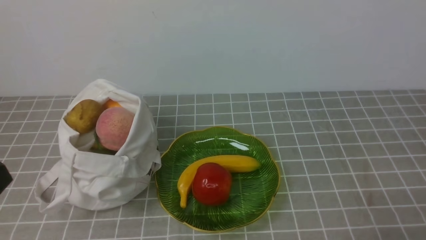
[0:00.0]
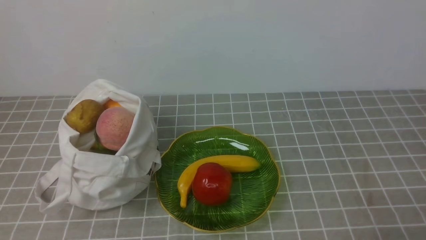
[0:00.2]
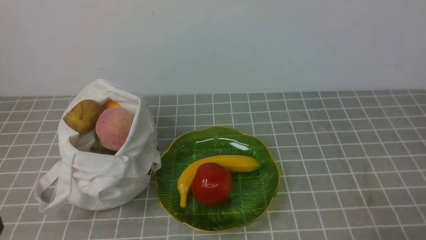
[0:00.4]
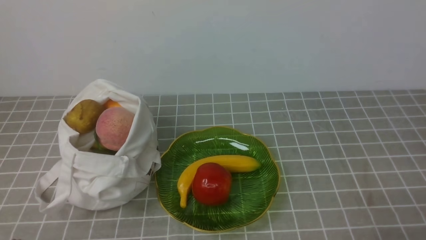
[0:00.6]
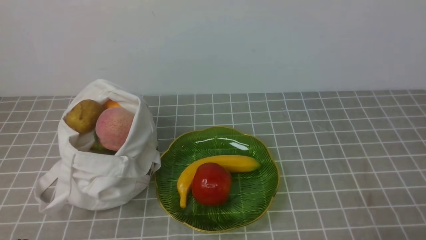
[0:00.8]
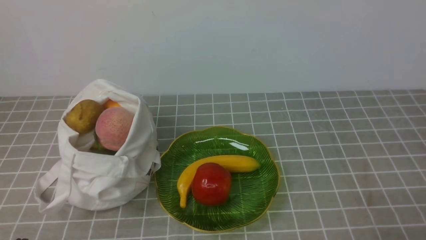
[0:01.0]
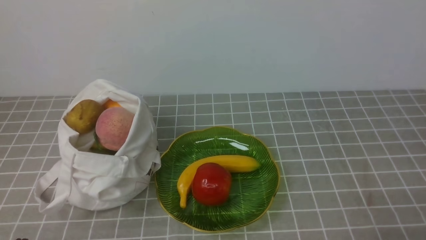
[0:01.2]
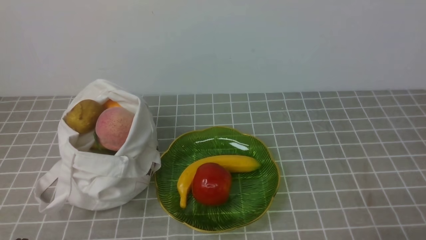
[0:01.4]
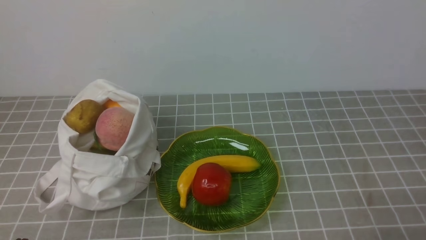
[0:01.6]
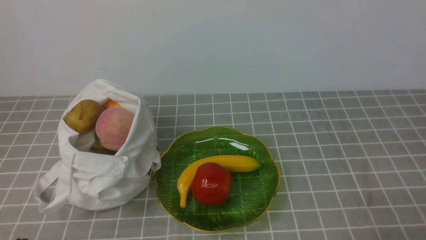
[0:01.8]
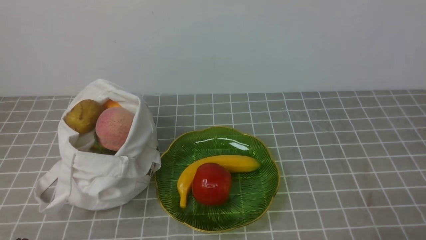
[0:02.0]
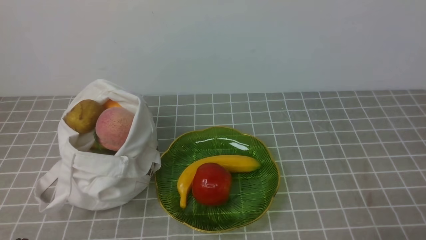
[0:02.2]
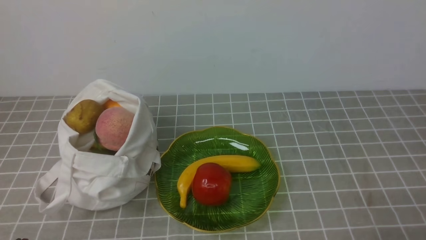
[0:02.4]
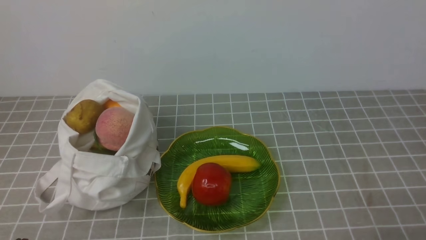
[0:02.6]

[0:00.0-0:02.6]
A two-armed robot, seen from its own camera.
0:01.2 to 0:02.6: Both grippers stay about where they are.
